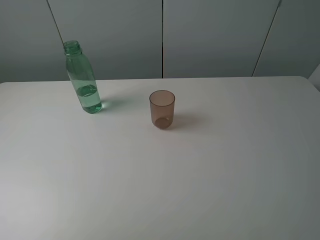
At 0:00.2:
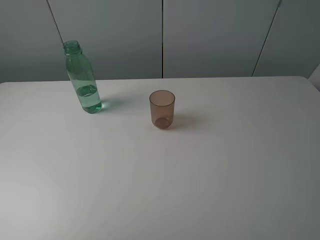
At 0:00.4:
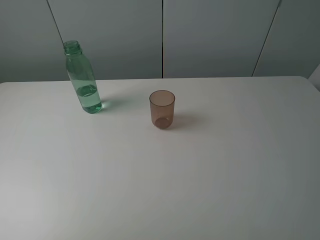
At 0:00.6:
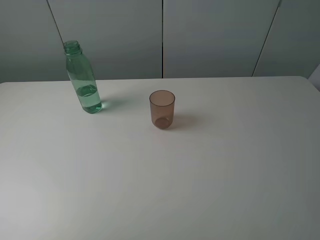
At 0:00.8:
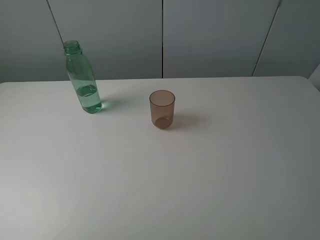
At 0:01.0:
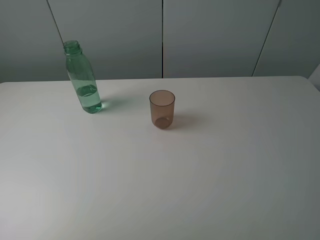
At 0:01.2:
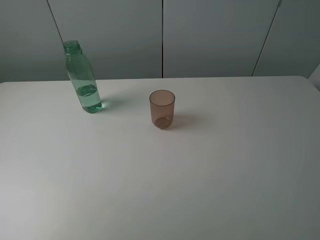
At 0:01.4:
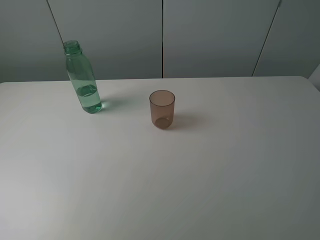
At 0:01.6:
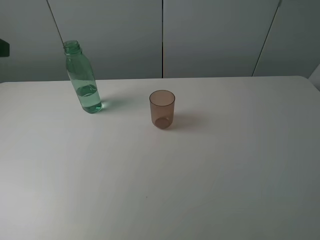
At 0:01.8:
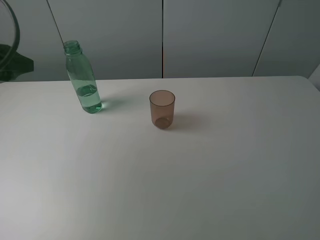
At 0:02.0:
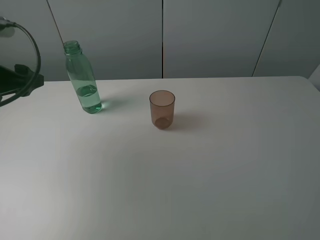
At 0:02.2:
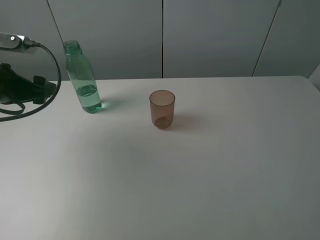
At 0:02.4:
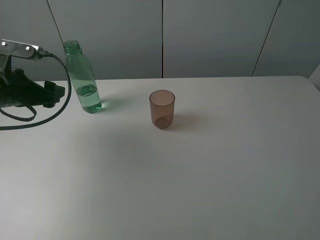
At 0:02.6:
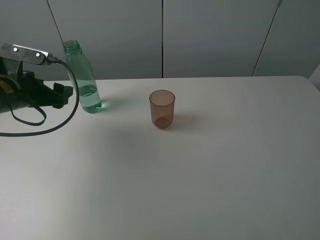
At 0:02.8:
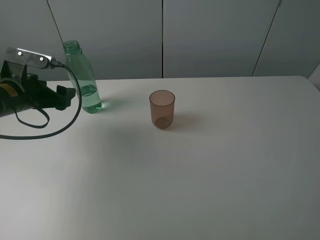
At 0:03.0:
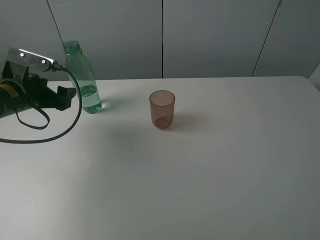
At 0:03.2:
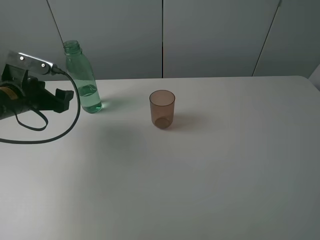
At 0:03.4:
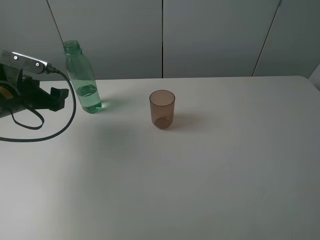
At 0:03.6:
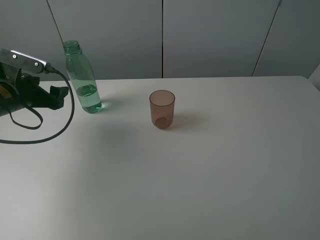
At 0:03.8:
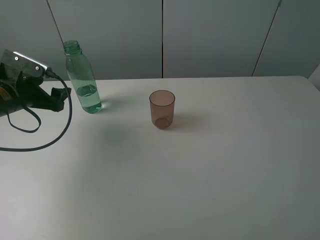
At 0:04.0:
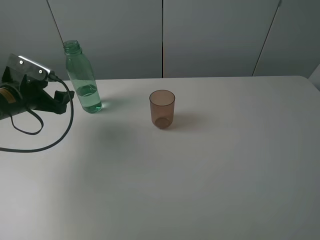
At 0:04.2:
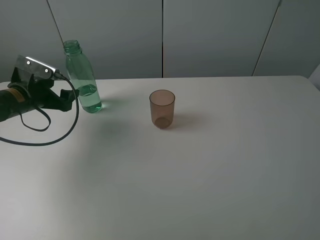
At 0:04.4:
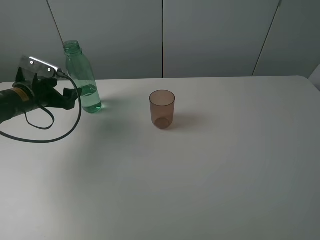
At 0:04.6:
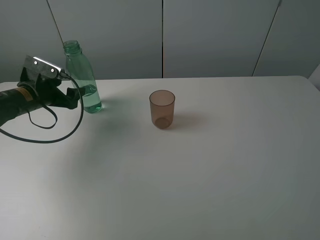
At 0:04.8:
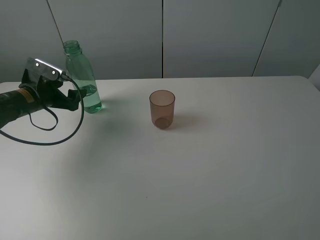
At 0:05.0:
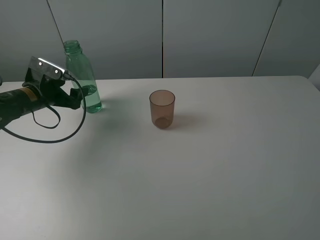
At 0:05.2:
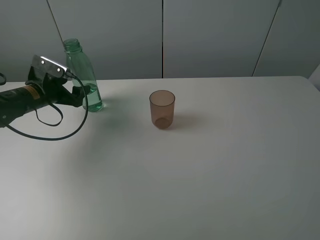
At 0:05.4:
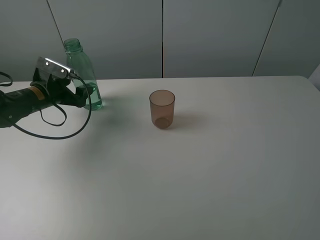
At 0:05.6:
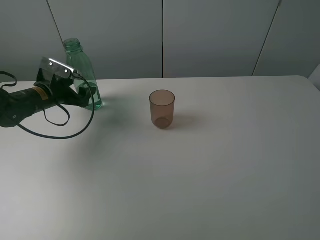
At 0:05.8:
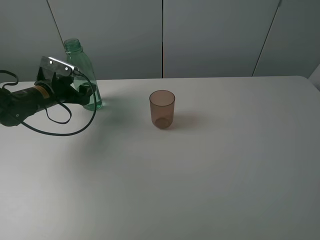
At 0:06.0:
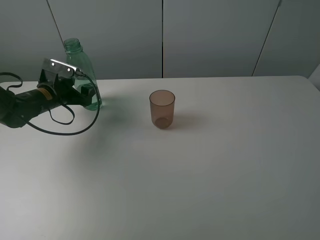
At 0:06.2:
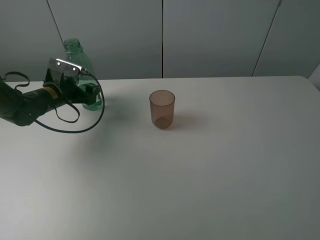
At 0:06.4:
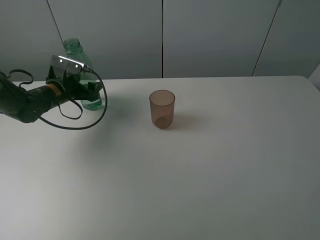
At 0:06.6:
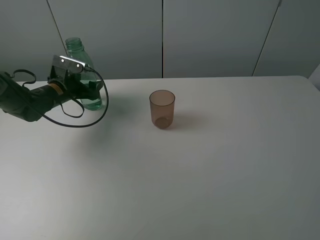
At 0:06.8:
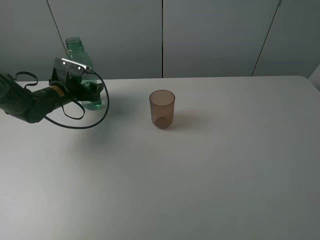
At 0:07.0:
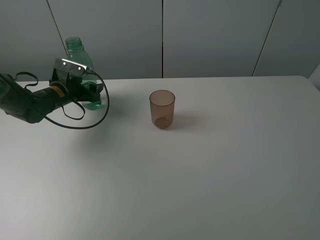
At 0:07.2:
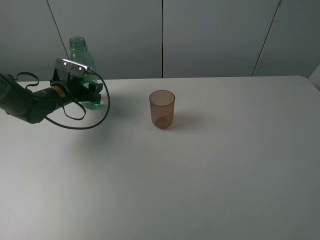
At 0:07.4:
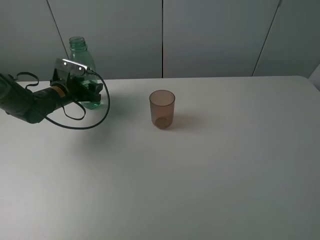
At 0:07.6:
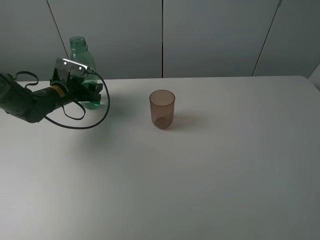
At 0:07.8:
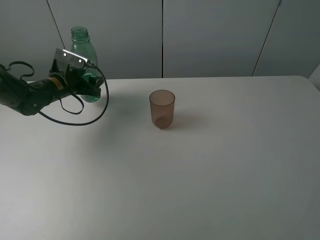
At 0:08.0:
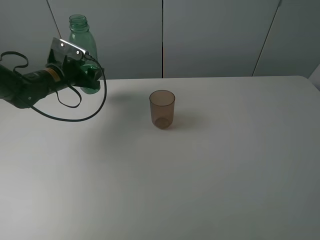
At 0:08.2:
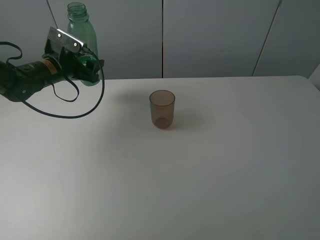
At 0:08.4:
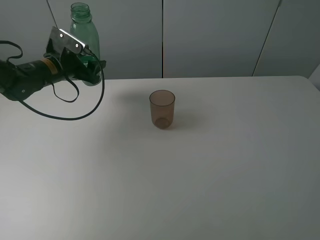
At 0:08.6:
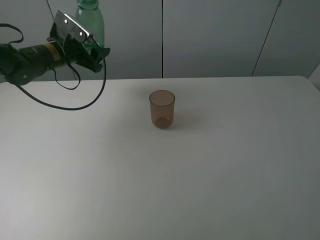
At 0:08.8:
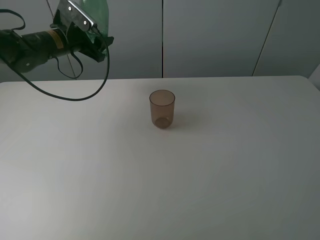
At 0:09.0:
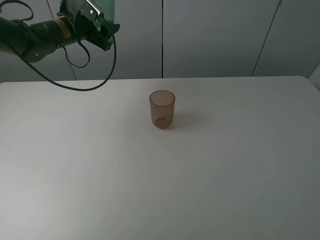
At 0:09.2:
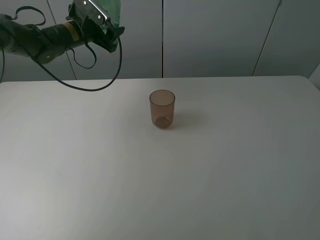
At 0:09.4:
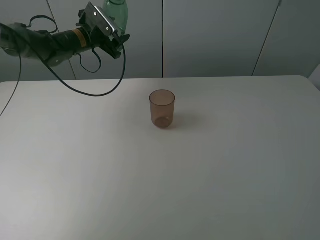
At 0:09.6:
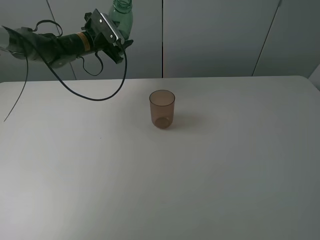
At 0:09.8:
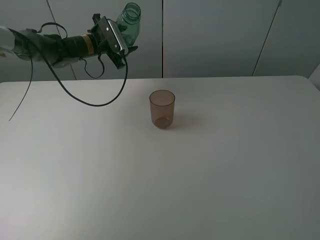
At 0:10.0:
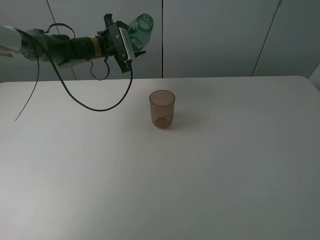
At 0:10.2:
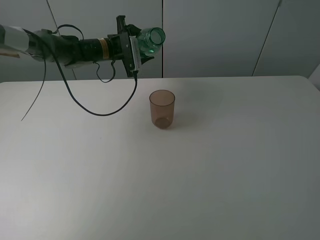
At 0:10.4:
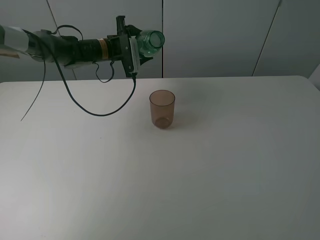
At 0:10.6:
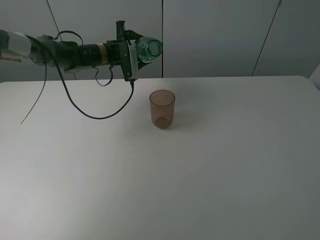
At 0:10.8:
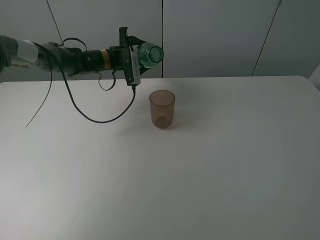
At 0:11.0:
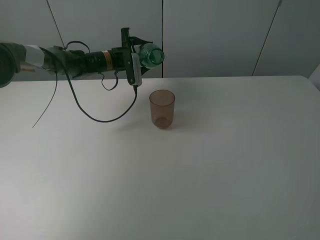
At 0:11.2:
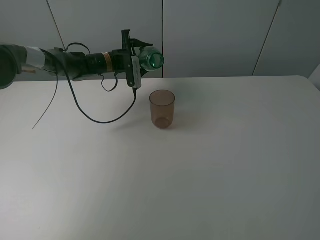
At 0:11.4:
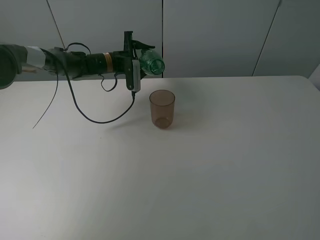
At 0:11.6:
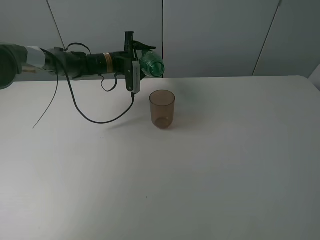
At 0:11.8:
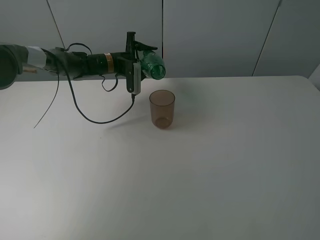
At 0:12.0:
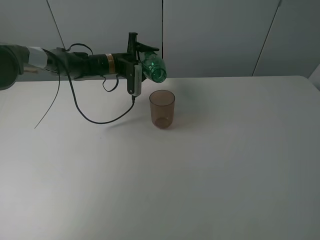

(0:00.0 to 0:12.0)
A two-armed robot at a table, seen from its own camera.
Task of the whole recording: pick up the bottle filled with water and pour it into the pink cup.
Step, 0:00.0 - 0:07.4: Grasp the green bottle with the left gripper.
0:01.6 - 0:03.0: The left gripper moves downward and forward, about 20 cm.
0:03.0 - 0:04.4: The left gripper moves approximately 5 cm.
0:04.4 - 0:06.0: The left gripper changes place by about 5 cm.
0:06.0 - 0:07.6: The left gripper closes its fingers.
0:07.6 - 0:09.0: The left gripper is displaced upward and forward by some 15 cm.
0:09.0 - 0:10.4: The left gripper is displaced to the right and downward by some 10 cm.
0:10.4 - 0:12.0: There are only small adjustments of the grippers.

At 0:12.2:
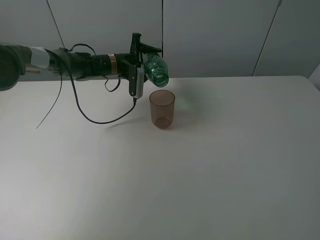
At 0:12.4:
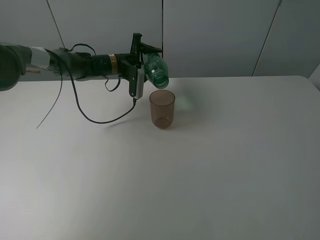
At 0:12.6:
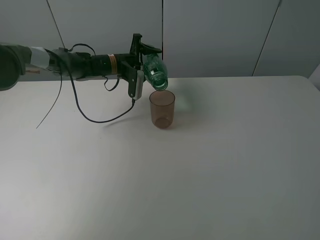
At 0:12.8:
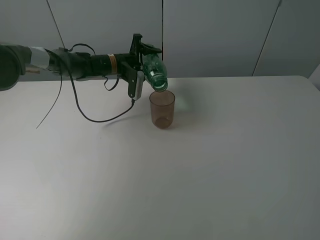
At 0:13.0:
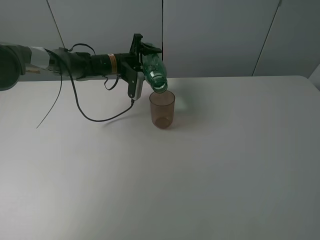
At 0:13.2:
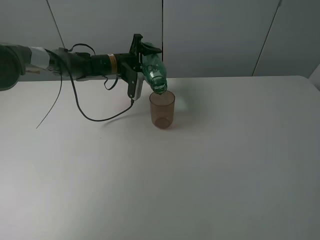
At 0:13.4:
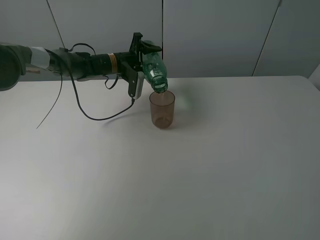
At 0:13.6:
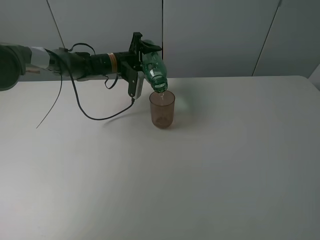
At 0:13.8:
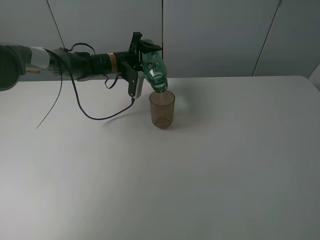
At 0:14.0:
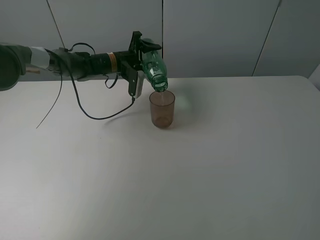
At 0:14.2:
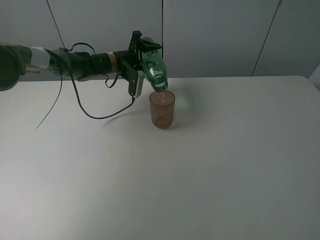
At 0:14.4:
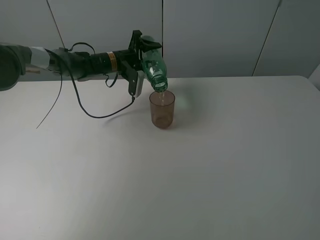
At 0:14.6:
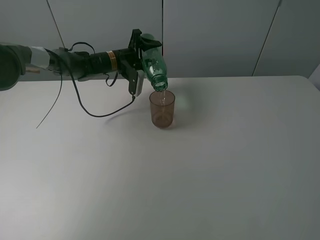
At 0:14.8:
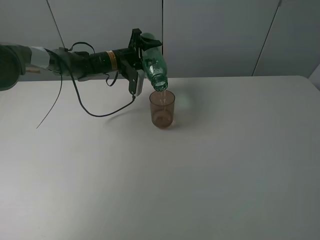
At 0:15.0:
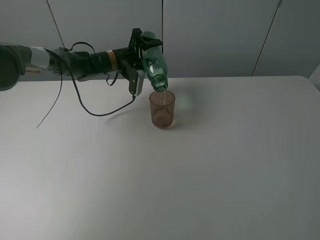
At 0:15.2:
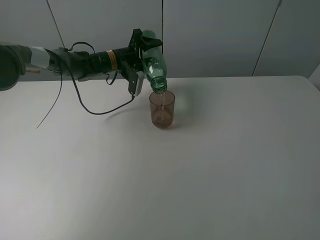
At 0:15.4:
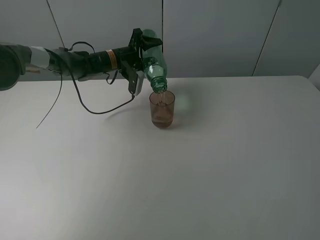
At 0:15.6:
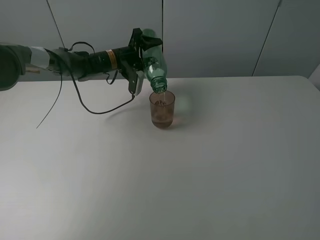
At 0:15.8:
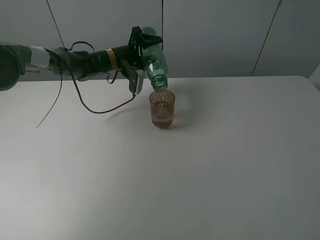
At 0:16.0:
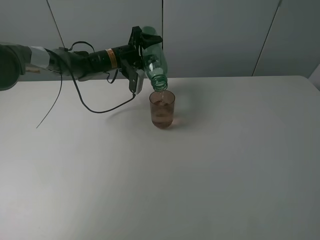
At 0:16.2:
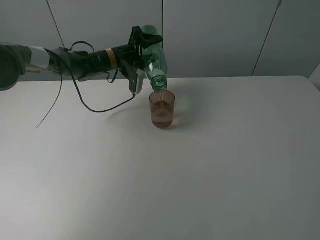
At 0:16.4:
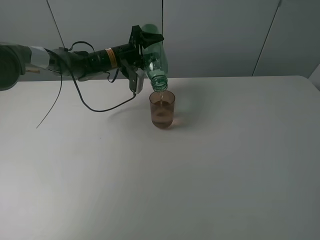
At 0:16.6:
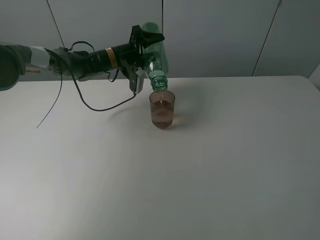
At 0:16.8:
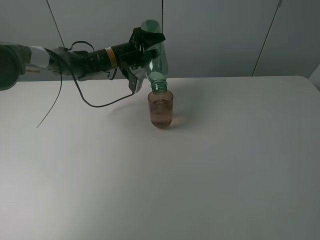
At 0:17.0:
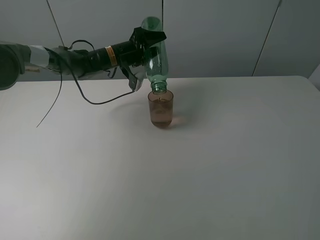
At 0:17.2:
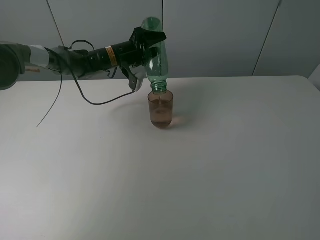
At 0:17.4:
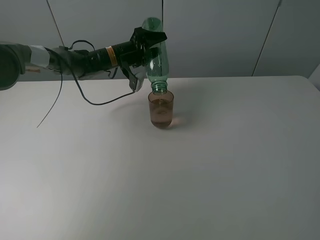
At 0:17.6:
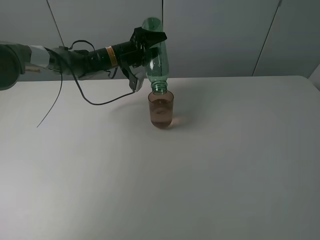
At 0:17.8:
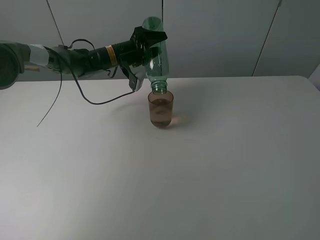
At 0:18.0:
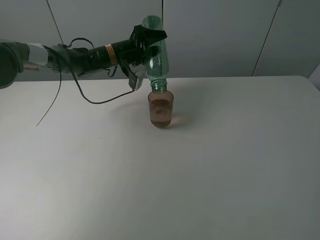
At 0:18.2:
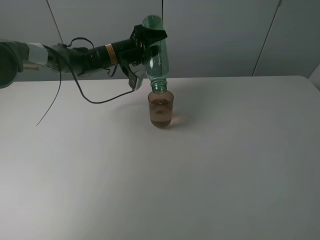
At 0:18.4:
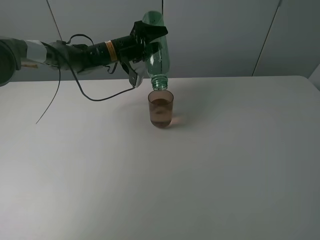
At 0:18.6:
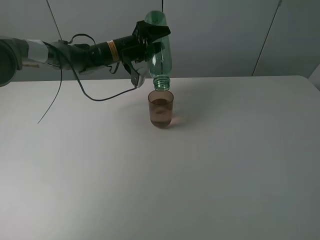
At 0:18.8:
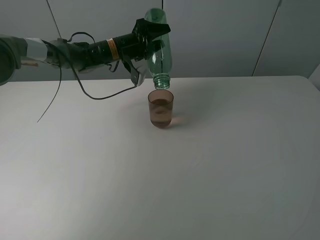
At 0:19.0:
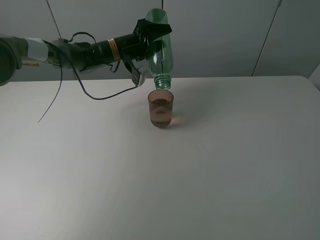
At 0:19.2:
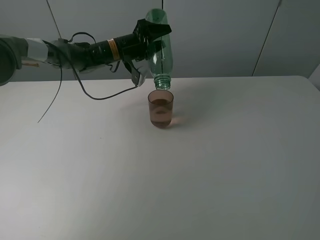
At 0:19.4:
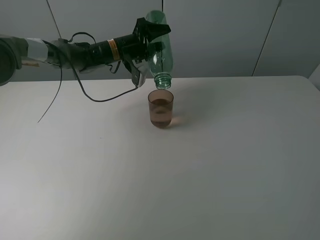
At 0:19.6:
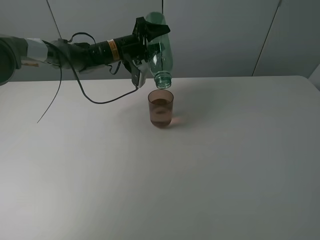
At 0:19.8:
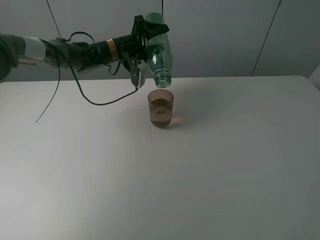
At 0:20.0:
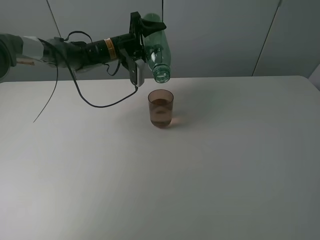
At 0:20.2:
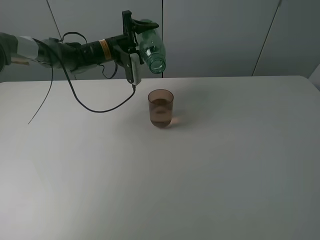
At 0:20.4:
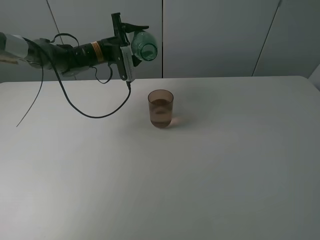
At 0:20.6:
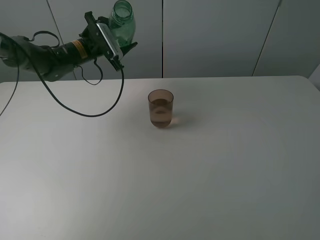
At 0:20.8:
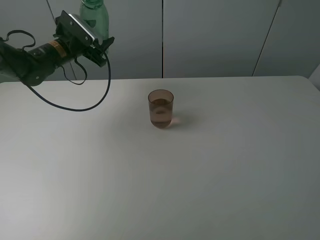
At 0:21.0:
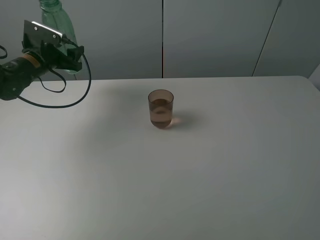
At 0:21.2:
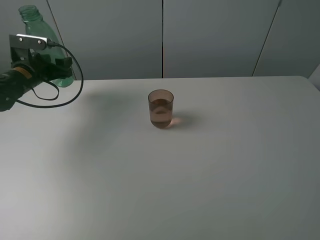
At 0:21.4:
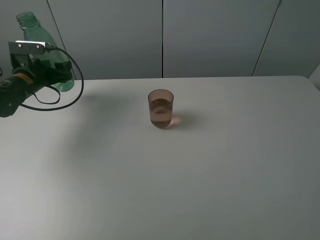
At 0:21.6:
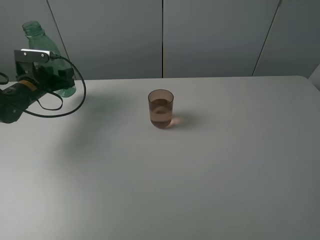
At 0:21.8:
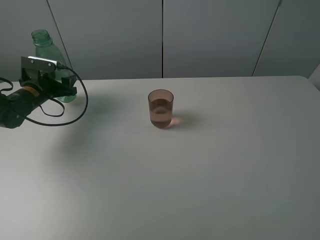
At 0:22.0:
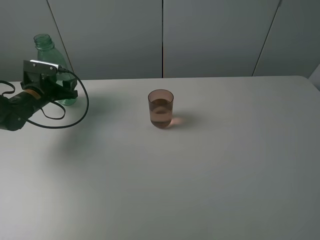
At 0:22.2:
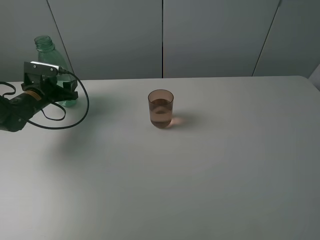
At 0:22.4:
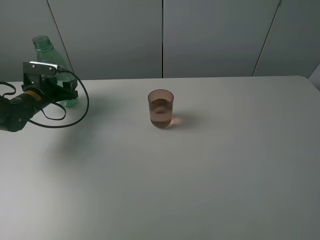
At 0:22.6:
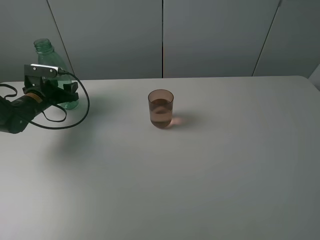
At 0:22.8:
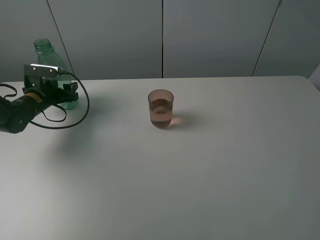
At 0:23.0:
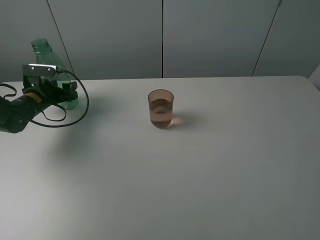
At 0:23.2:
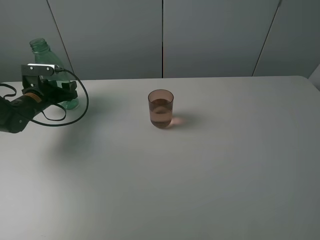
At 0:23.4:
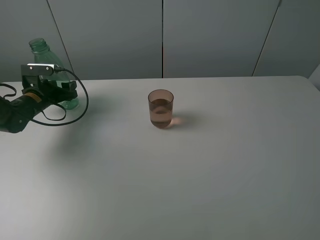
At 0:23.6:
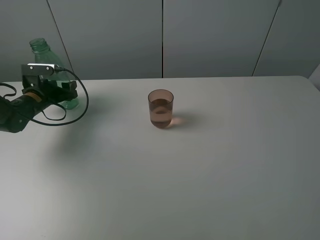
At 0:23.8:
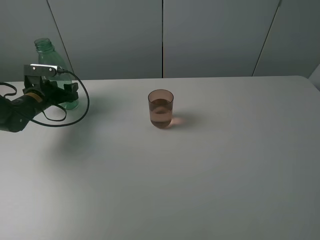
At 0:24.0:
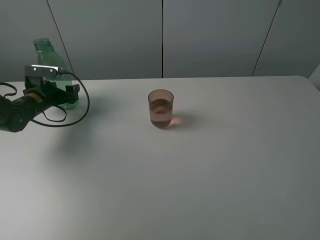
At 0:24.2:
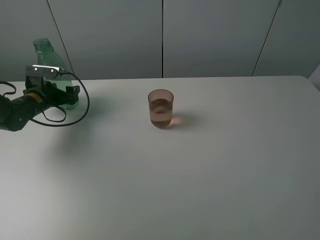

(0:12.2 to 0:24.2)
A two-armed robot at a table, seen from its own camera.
Task of the whole recording: pick up the bottle filled with water and pour it into the pink cup.
Step, 0:12.2 - 0:20.2: Pour water from green bottle to pink cup with the left gripper.
0:12.2 - 0:13.8: The grippers make only small movements.
0:13.8 - 0:16.6: There are only small adjustments of the grippers.
0:16.6 - 0:19.8: The grippers move only a little.
0:19.8 - 0:21.2: The left gripper moves to the left, approximately 20 cm.
0:21.2 - 0:22.6: The left gripper is displaced downward by some 5 cm.
0:22.6 - 0:24.2: The left gripper opens.
